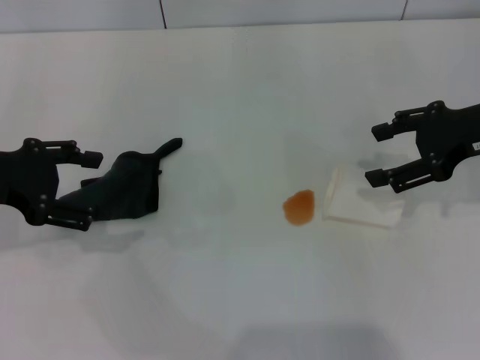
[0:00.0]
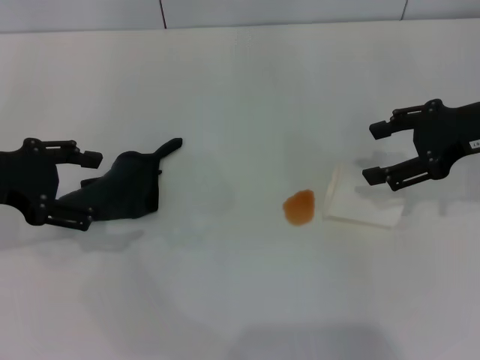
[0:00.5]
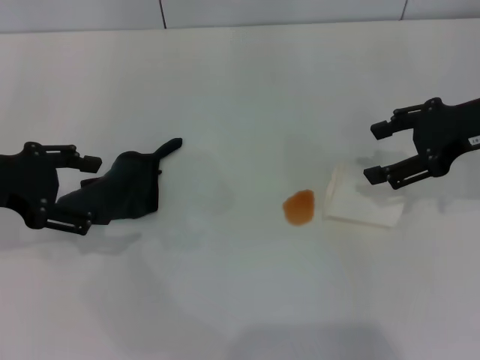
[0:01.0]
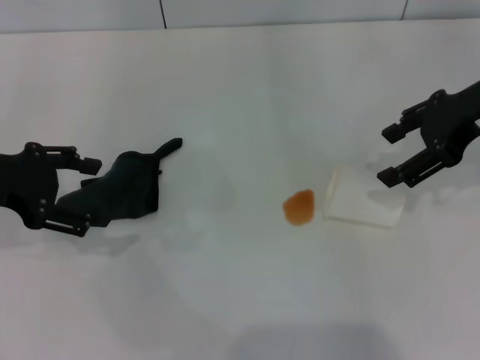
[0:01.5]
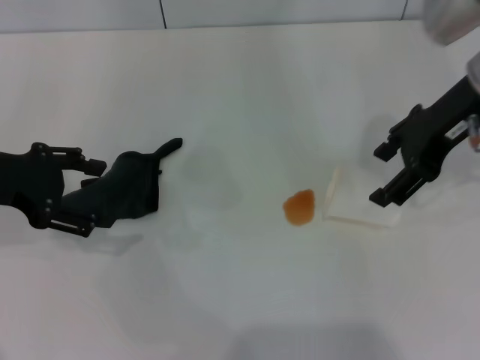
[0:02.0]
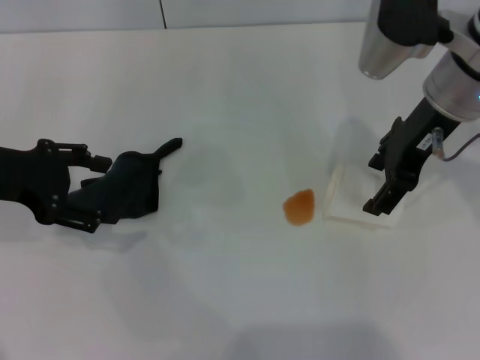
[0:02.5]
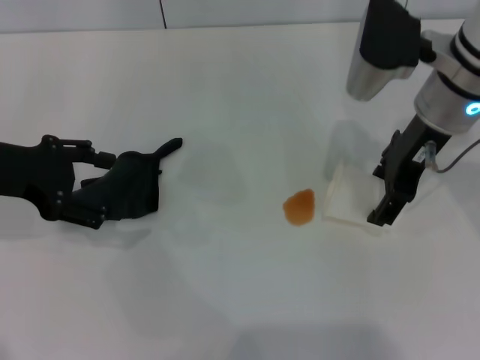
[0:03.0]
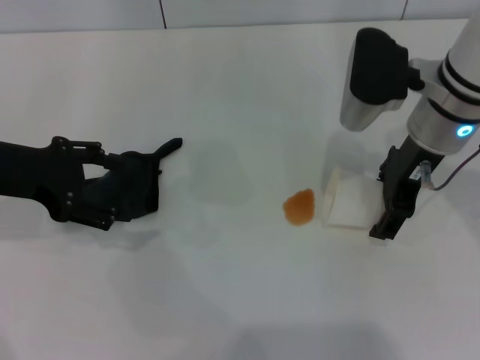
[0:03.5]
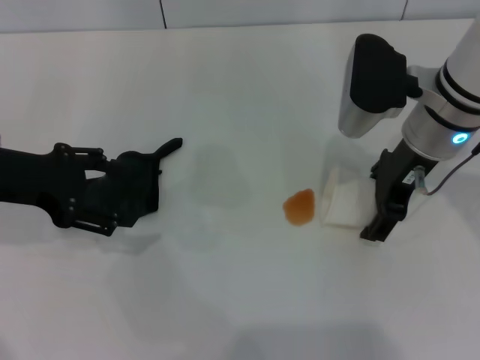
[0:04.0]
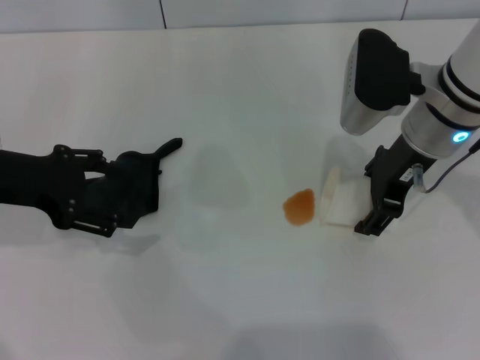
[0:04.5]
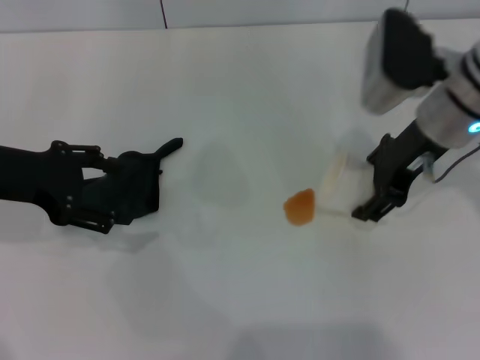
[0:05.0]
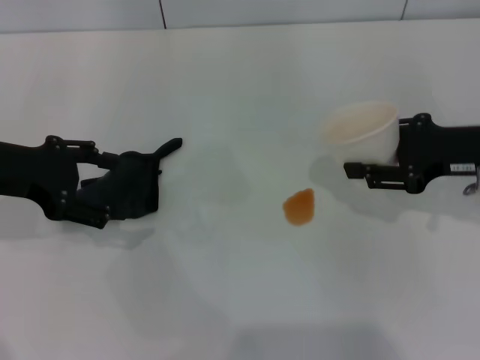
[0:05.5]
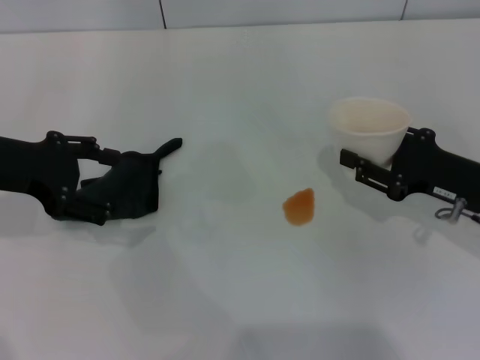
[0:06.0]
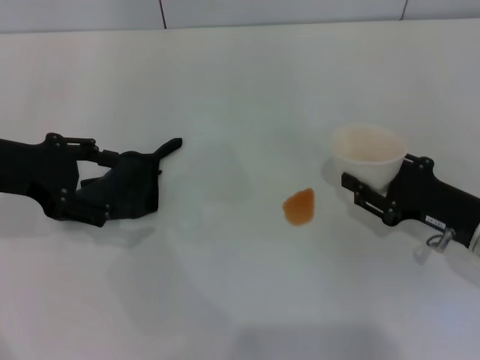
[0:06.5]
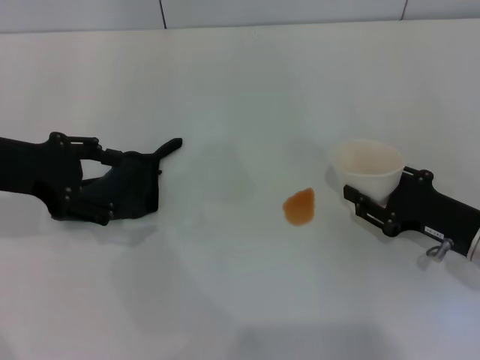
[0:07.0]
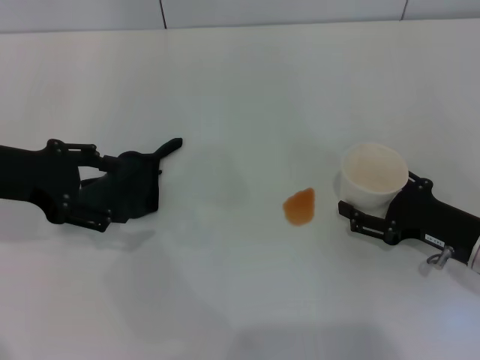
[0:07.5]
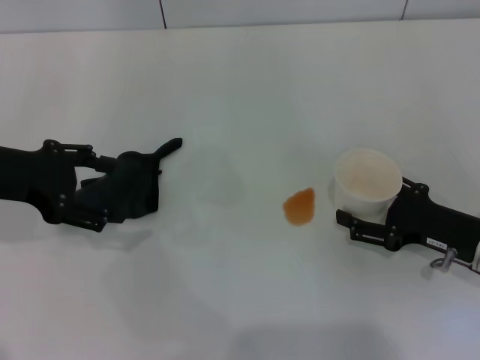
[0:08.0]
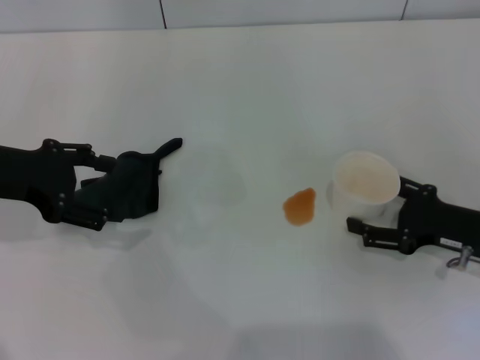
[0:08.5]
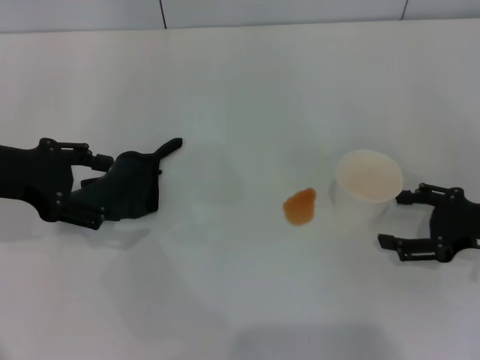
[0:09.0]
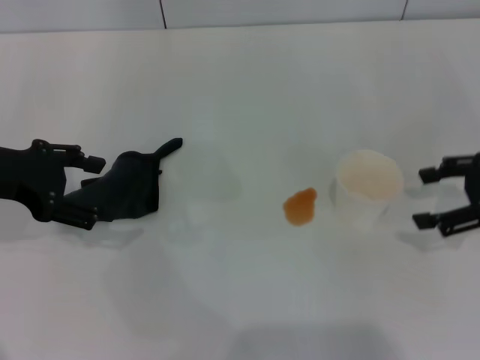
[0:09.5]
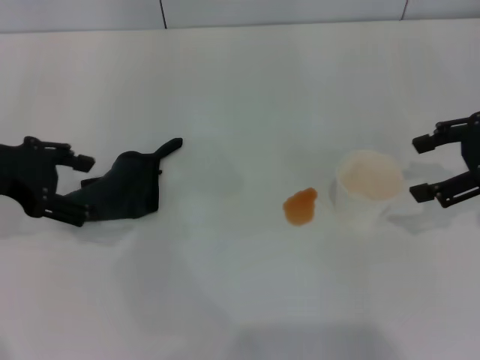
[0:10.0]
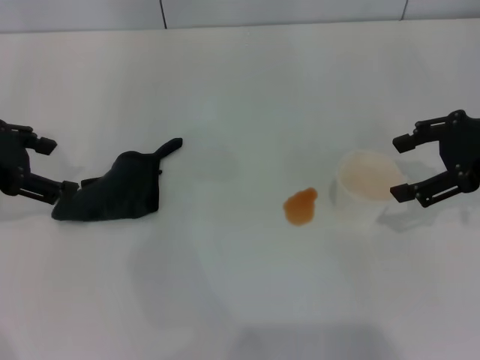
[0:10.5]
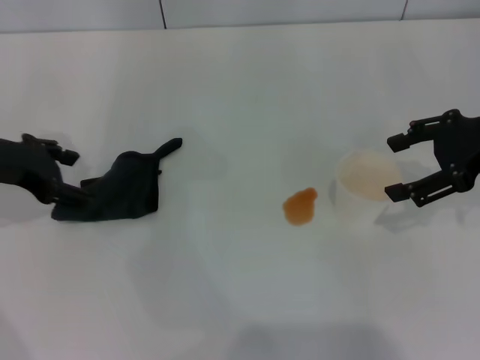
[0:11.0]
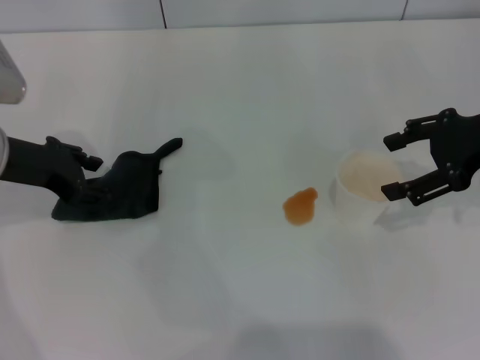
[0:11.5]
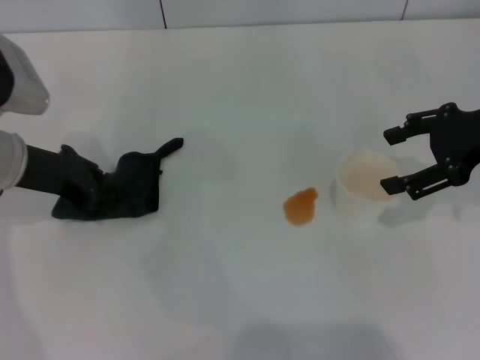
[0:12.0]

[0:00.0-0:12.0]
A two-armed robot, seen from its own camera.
Step, 0:00.0 to 0:04.5: Grasp the paper cup with the right gripper.
Step, 0:05.0 to 0:08.5: Stand the paper cup upright with the right gripper.
Step, 0:09.5 to 0:12.0: Grasp the rag with the left gripper.
0:00.0 to 0:02.0: The right gripper travels to the left by approximately 5 cm.
0:02.0 to 0:04.0: The right gripper moves downward, some 5 cm.
0:04.0 to 0:06.0: The right gripper heads to the right, downward and backward, covering roughly 15 cm, and closes its fingers.
0:06.0 to 0:08.0: The right gripper changes place by some 5 cm, and opens.
0:08.0 to 0:10.0: The right gripper shifts roughly 20 cm upward and forward.
0:10.0 to 0:12.0: The left gripper shifts some 5 cm downward, and closes up.

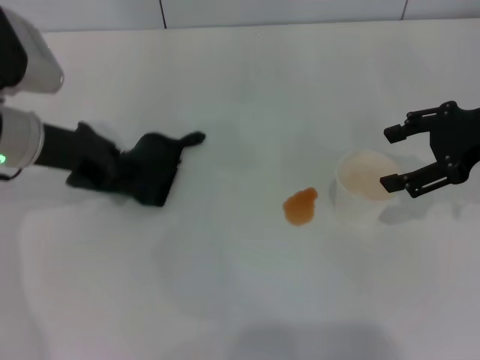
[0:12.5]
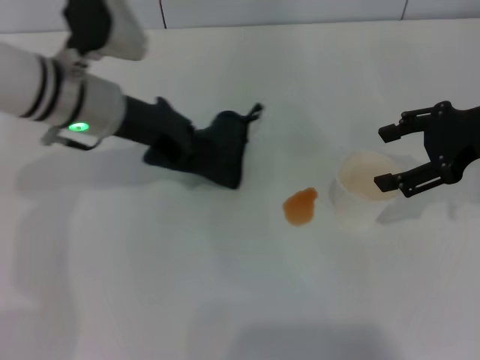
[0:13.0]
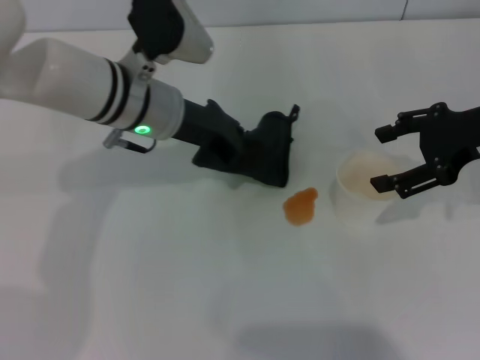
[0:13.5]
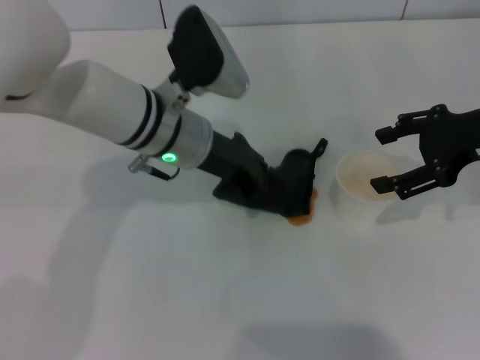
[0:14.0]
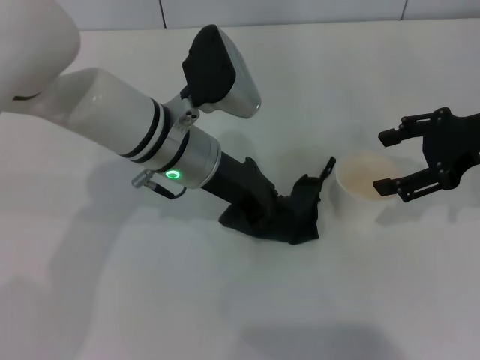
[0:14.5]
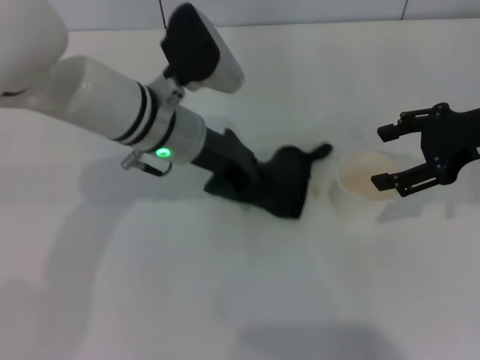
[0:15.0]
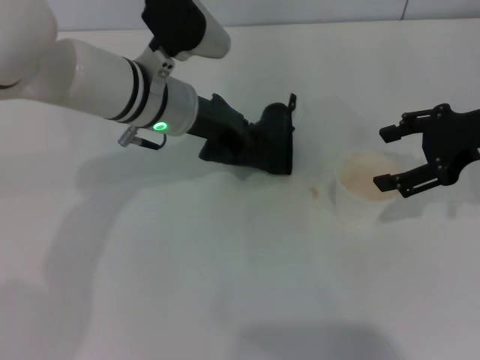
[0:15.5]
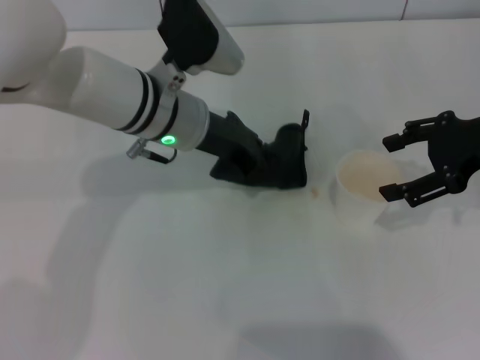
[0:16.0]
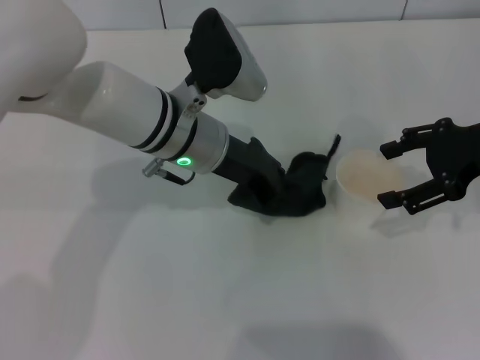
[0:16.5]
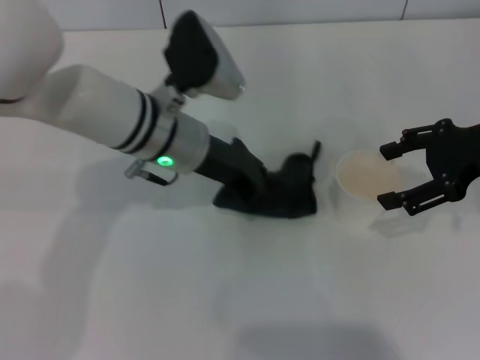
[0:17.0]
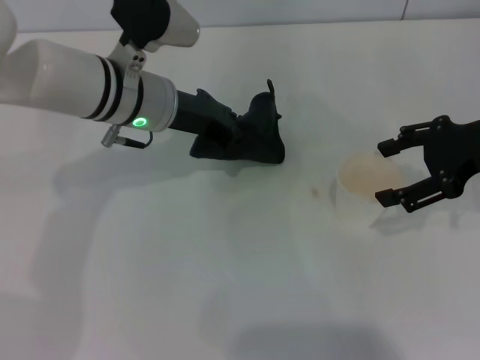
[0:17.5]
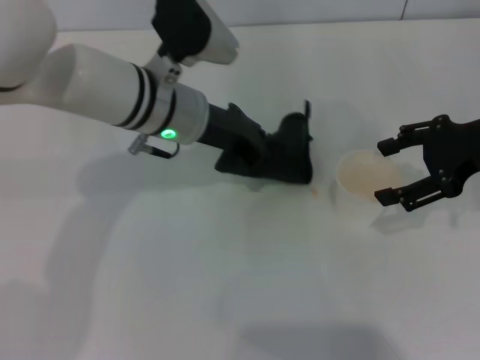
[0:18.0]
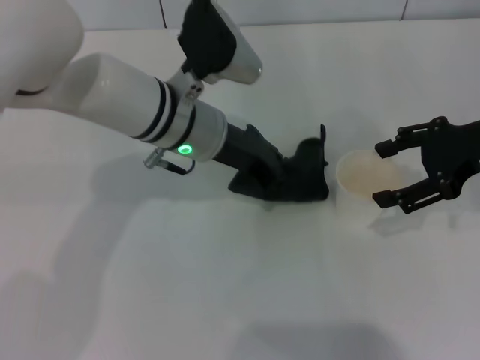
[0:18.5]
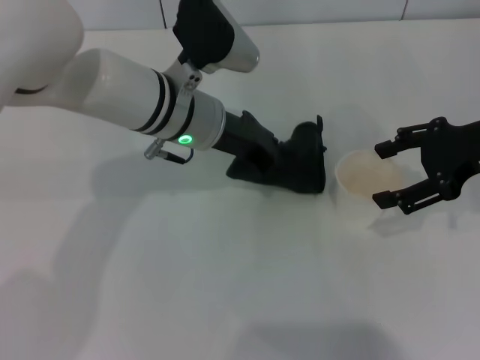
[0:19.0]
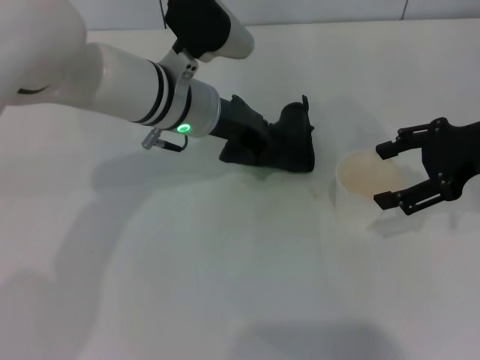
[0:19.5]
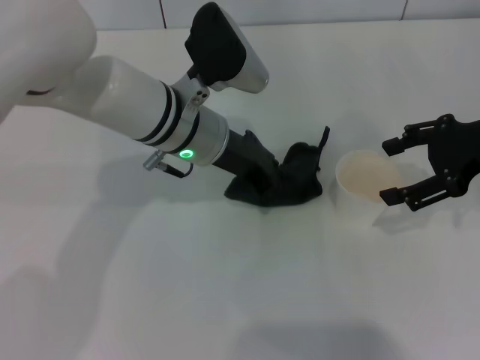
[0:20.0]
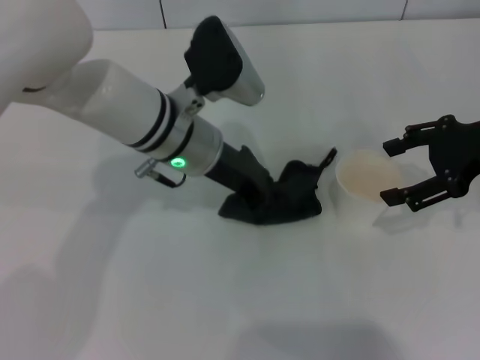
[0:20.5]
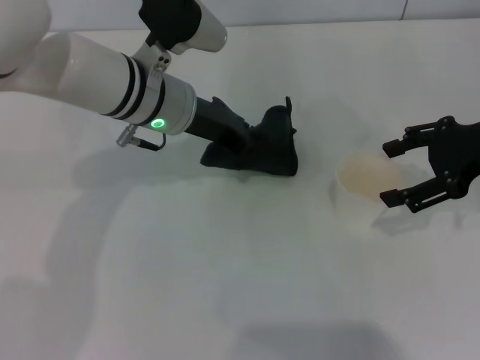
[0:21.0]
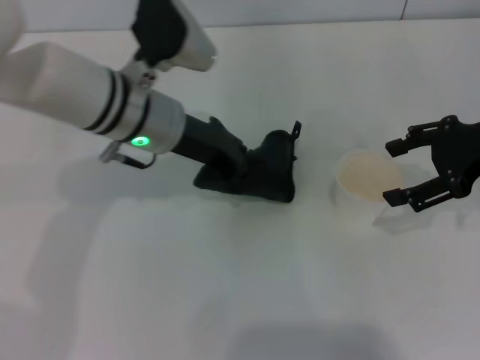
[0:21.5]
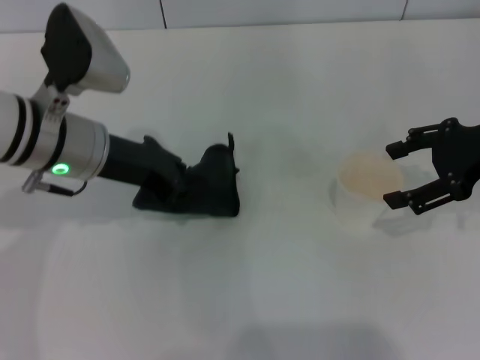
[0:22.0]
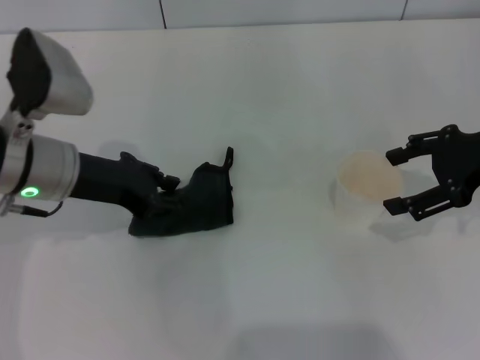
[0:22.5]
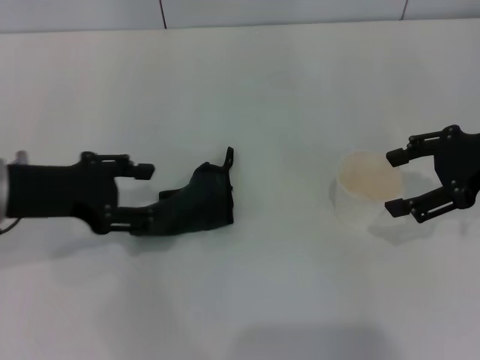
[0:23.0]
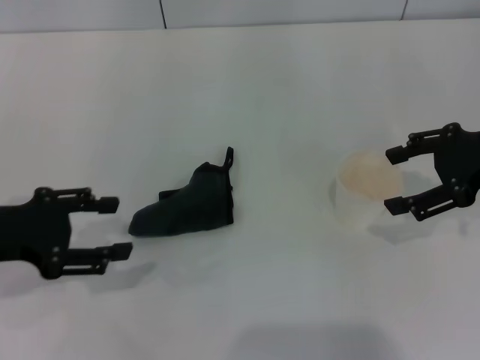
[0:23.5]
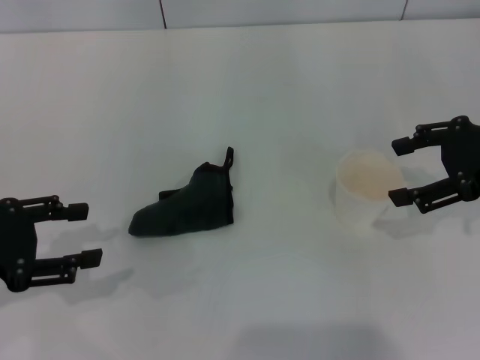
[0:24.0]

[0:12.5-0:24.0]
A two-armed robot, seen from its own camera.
Step, 0:12.5 to 0:22.0: Wipe the stains off the table with the left gripper.
0:12.5 to 0:14.5: The left gripper shifts about 15 cm to the right.
0:14.5 to 0:16.5: There are only small adjustments of the grippers.
0:16.5 to 0:20.0: The grippers make only small movements.
0:20.0 to 0:22.0: The left gripper heads to the left, covering about 10 cm.
0:22.0 to 0:24.0: The left gripper heads to the left and backward, covering some 20 cm, and opens up.
